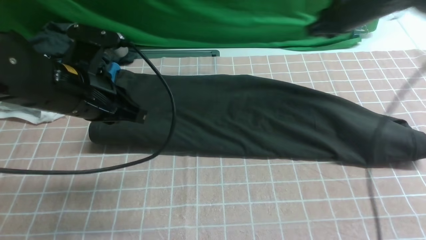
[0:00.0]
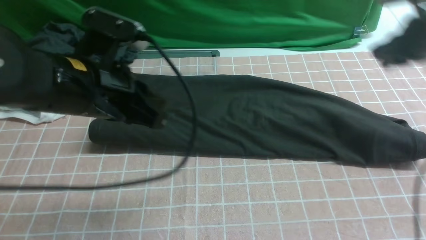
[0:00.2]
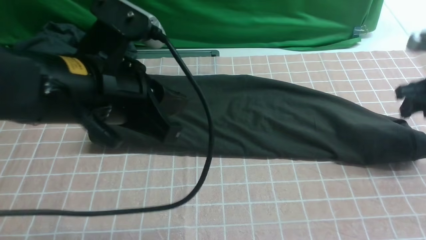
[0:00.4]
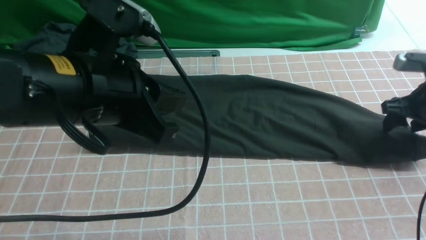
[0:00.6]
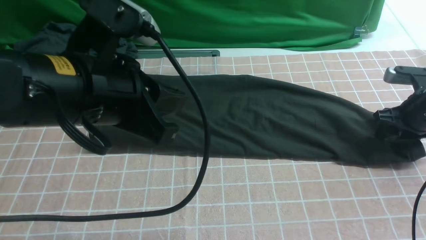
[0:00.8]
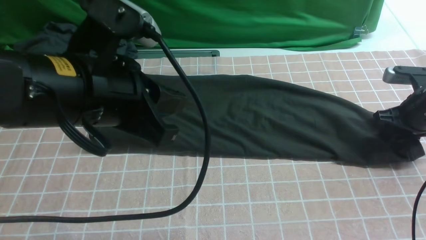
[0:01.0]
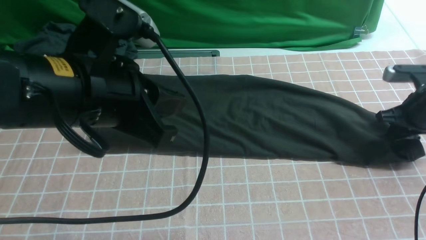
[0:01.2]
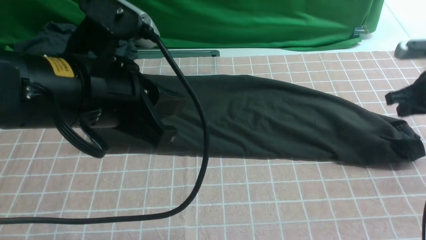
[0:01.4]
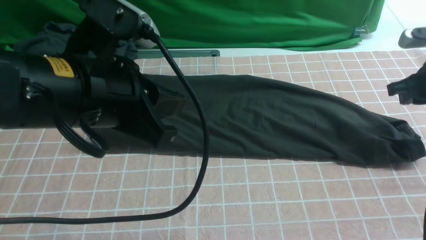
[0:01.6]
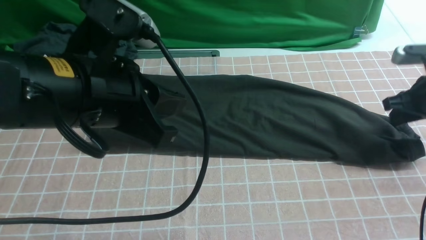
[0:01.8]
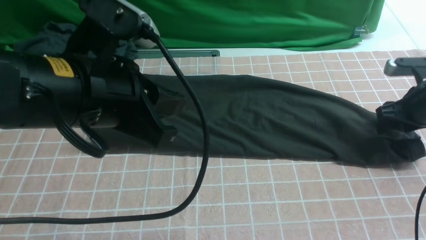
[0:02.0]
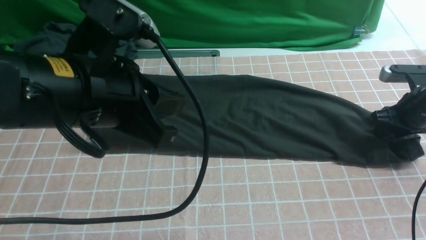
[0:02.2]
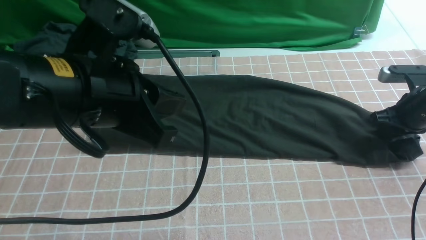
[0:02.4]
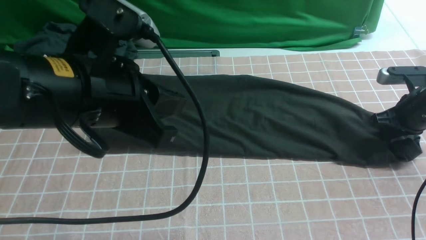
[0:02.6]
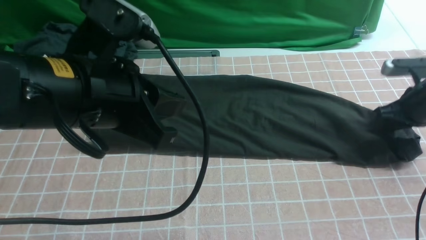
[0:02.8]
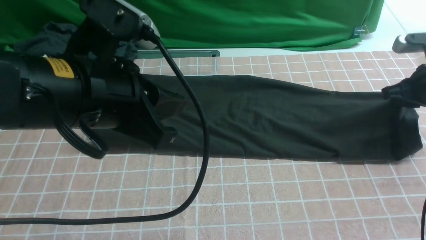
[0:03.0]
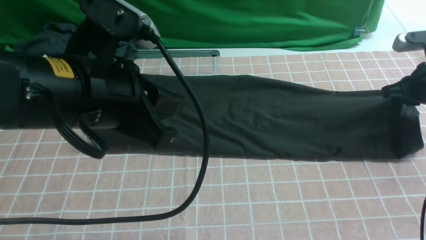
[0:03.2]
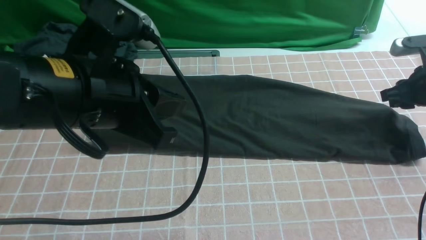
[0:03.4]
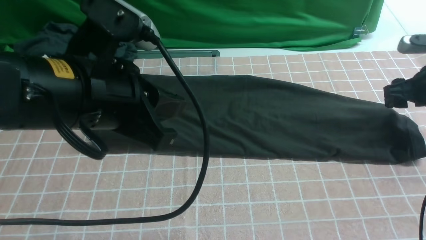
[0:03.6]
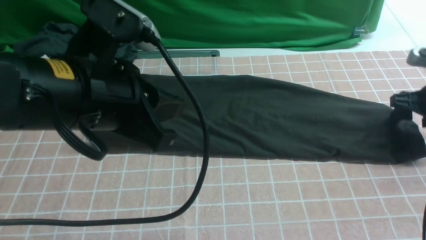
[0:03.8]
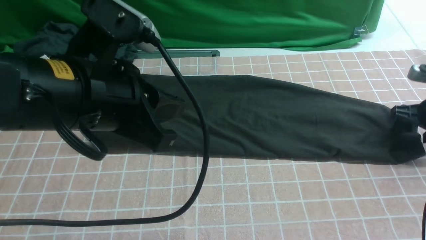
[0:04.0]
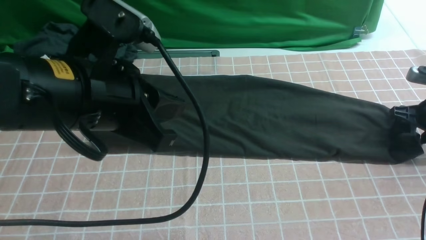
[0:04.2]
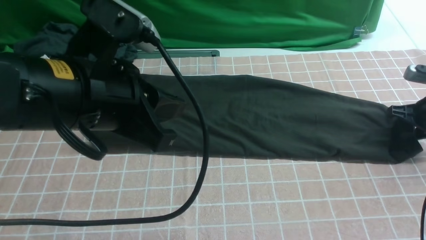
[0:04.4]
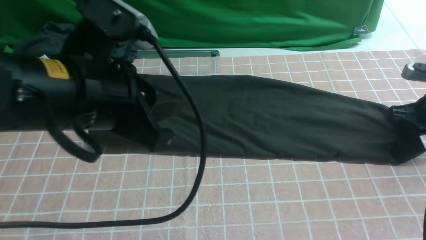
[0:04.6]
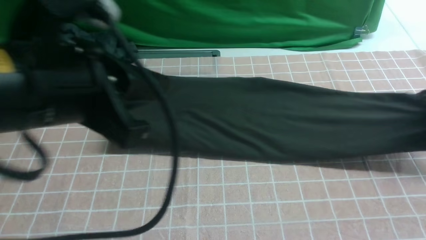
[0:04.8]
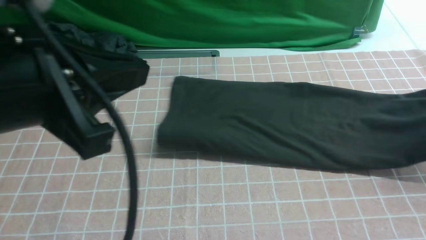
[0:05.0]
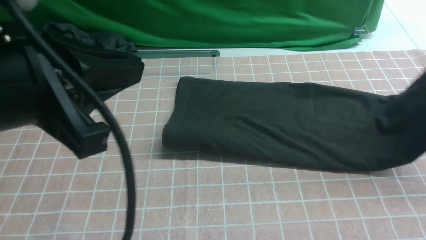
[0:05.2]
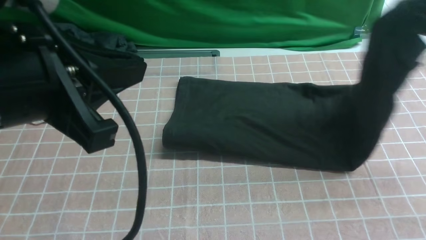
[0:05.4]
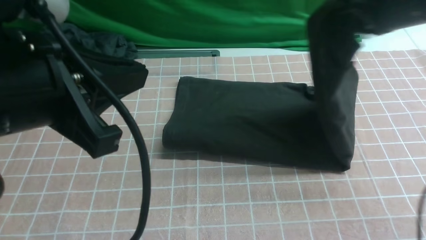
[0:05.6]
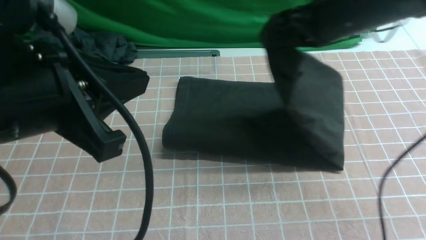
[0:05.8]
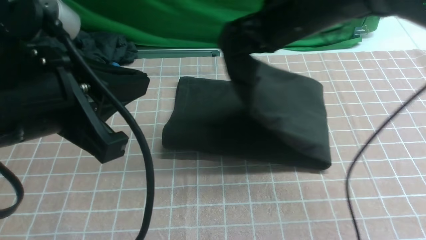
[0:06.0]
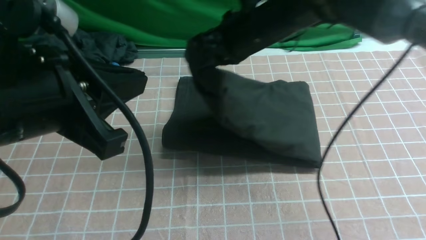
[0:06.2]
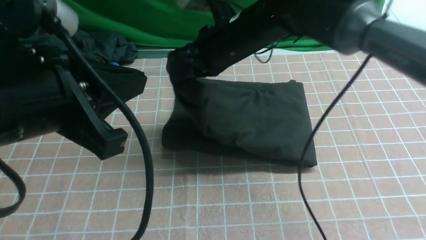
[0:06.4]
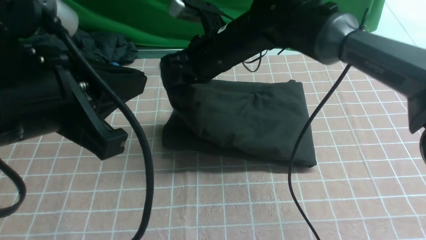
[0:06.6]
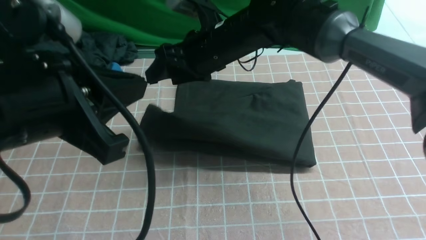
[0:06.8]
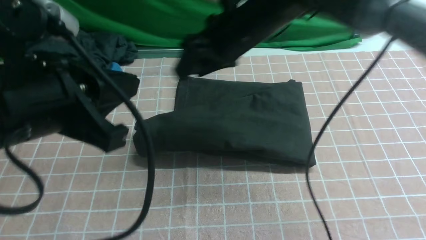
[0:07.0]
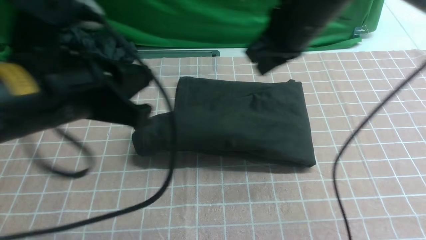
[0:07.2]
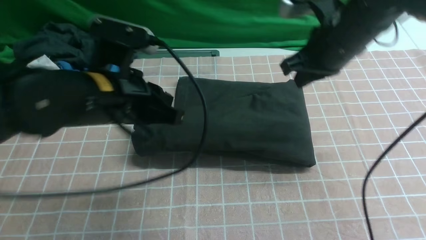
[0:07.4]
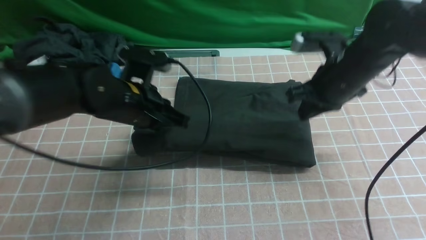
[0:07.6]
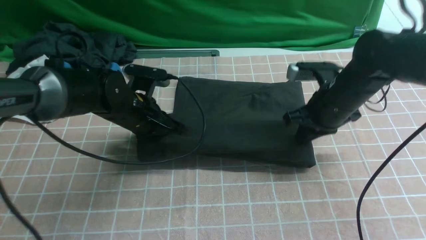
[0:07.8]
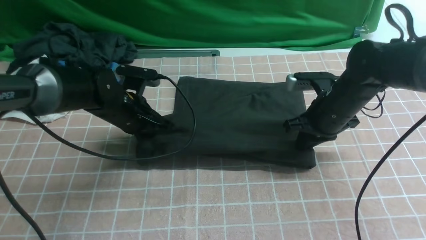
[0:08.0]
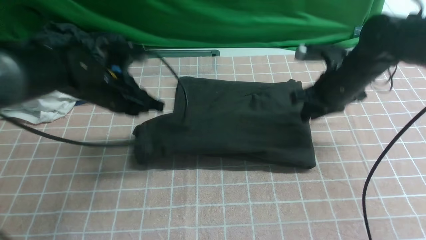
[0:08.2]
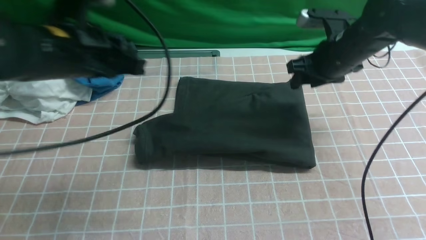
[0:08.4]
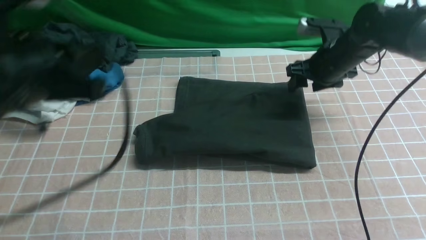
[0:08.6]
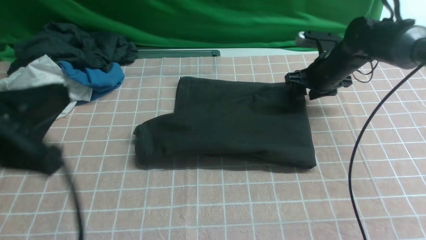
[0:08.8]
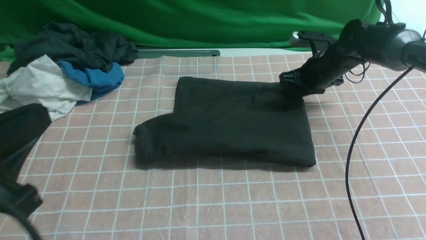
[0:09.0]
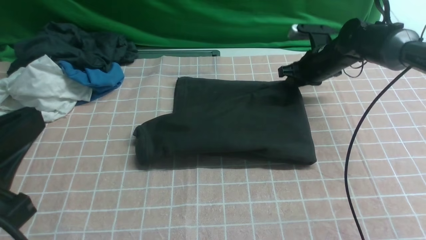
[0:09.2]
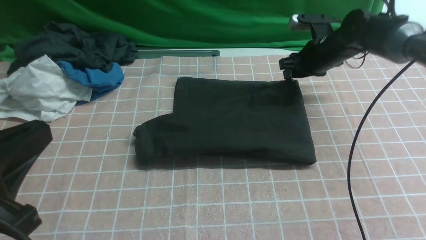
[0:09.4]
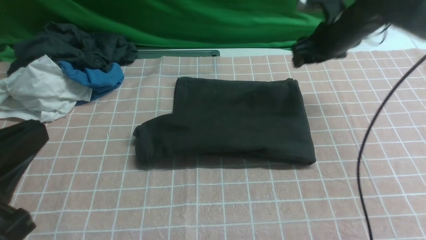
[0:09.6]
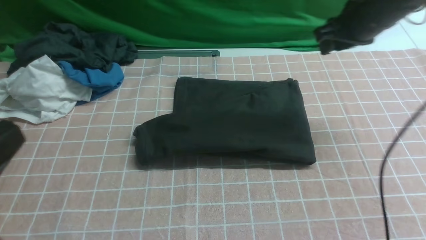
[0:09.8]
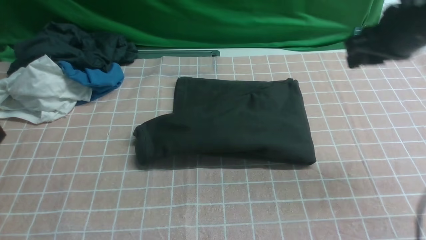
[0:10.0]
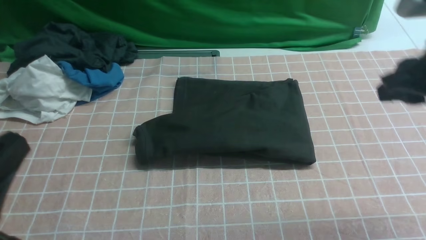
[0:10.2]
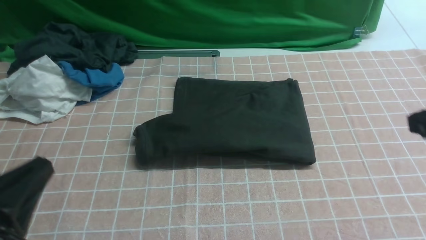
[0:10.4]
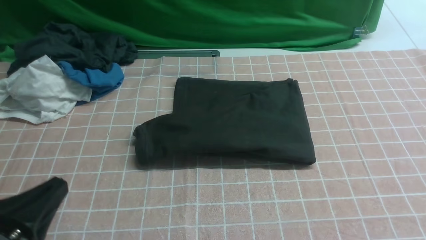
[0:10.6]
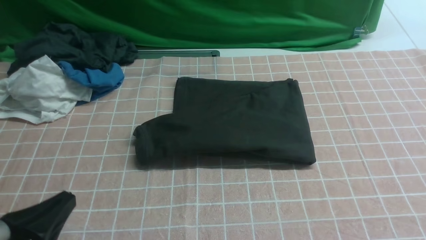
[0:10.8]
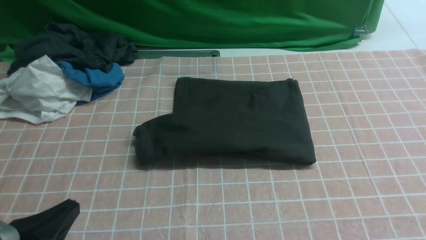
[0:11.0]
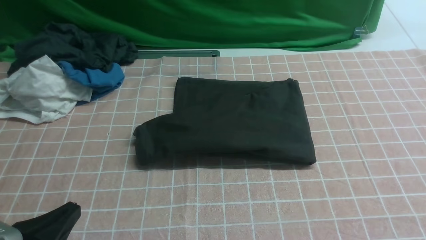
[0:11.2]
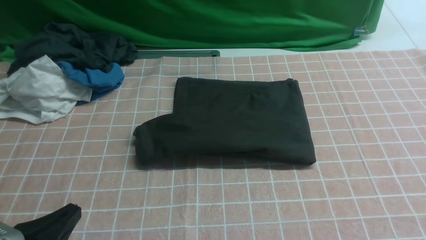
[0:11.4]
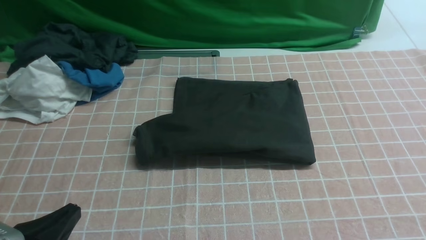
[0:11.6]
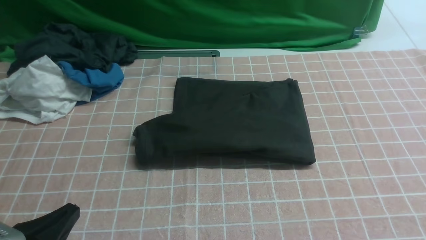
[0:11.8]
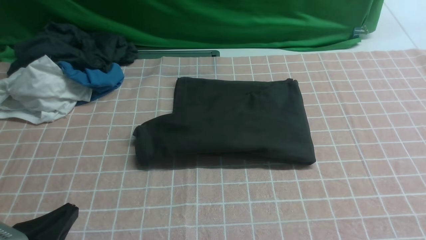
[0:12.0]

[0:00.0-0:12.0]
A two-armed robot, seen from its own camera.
Step, 0:00.0 to 0:04.4: use the right arm to clamp the right edge of the fabric.
Step, 0:04.6 to 0:07.0: use the right arm to drag the right edge of the fabric to the left and folds it over the left edge.
0:00.0 to 0:01.6: The right gripper heads backward, to the right and downward, covering some 15 cm, and opens, then closes again; the left gripper heads backward and upward, covering about 10 cm.
0:01.6 to 0:03.0: The right gripper opens, then closes once more.
0:03.0 to 0:04.4: The right gripper moves approximately 5 cm, and opens.
0:04.4 to 0:06.0: The right gripper moves to the left and upward, some 35 cm, and closes up; the left gripper changes place by some 5 cm.
0:06.0 to 0:07.6: The left gripper shifts roughly 25 cm forward and downward, while the right gripper is displaced downward and to the right by roughly 10 cm, and opens, then closes again.
0:07.6 to 0:09.0: The left gripper moves backward and upward, roughly 25 cm; the right gripper heads forward and downward, covering roughly 15 cm, and opens its fingers.
0:09.0 to 0:10.4: The left gripper goes about 5 cm downward. The right gripper moves backward and upward, some 35 cm, and closes its fingers.
0:10.4 to 0:12.0: The left gripper is displaced downward by approximately 10 cm.

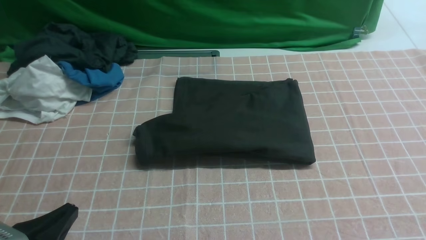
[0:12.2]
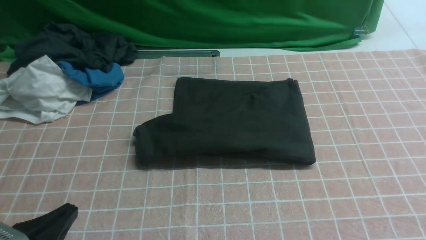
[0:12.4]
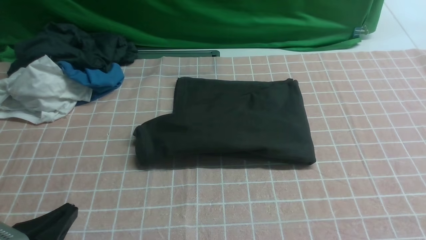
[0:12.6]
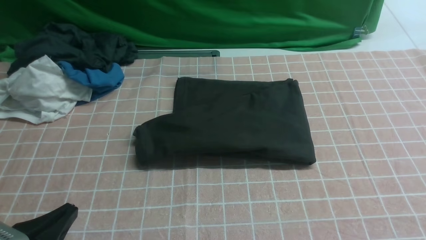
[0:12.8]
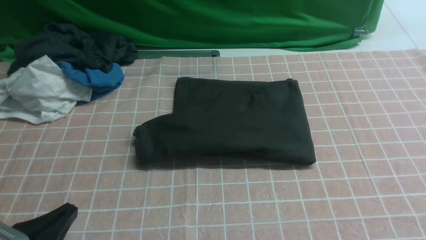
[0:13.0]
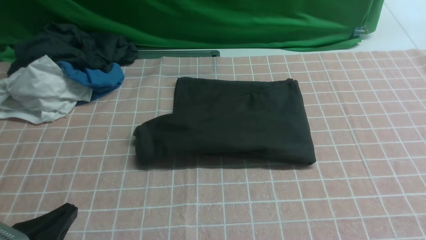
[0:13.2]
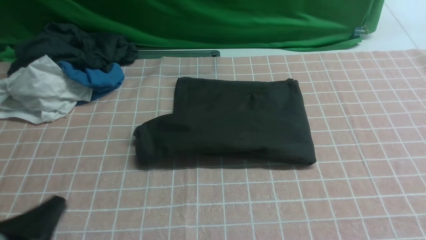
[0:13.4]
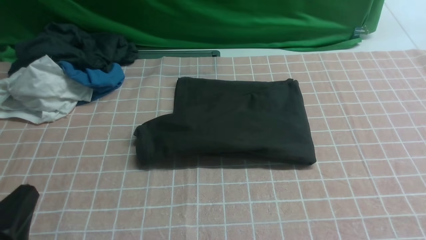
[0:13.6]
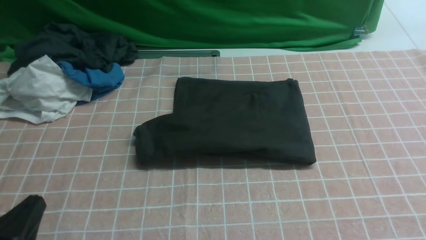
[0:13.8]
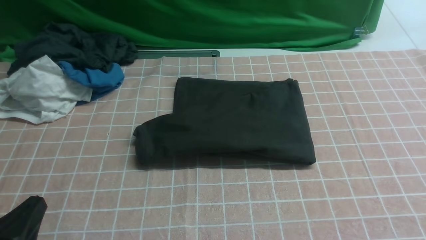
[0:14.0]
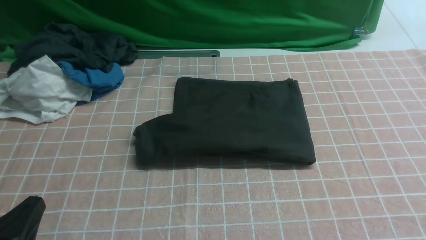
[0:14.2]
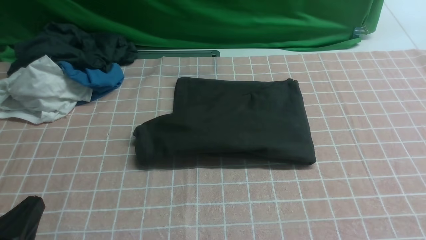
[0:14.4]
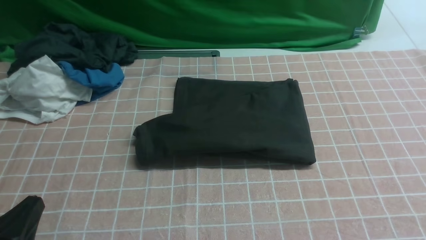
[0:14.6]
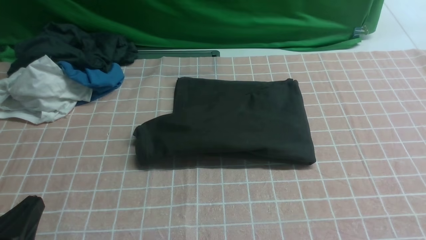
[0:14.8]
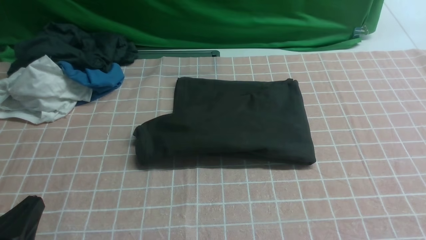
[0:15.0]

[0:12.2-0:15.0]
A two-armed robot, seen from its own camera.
0:12.2 to 0:13.6: There are only small adjustments of the grippers.
0:13.6 to 0:15.0: Both grippers stay put.
